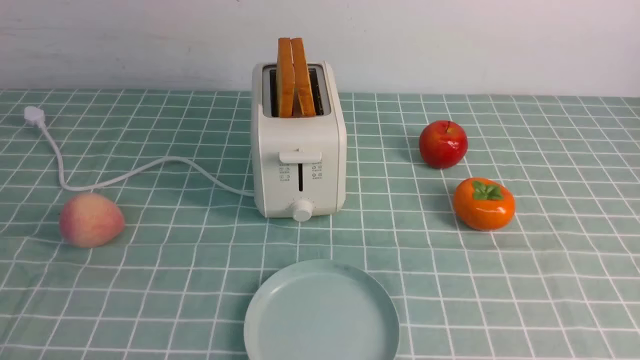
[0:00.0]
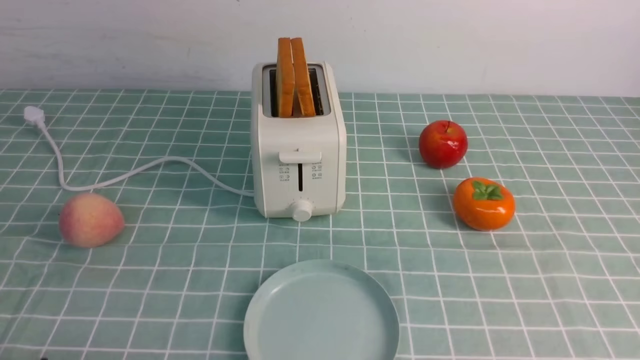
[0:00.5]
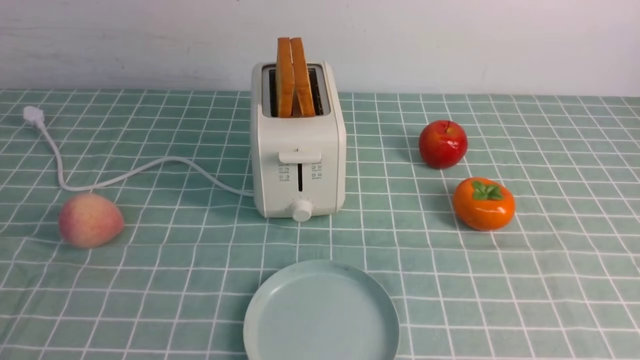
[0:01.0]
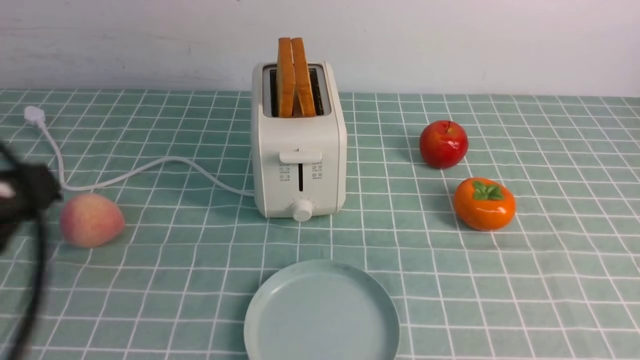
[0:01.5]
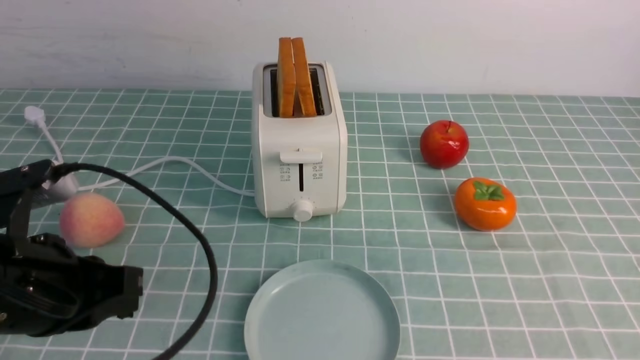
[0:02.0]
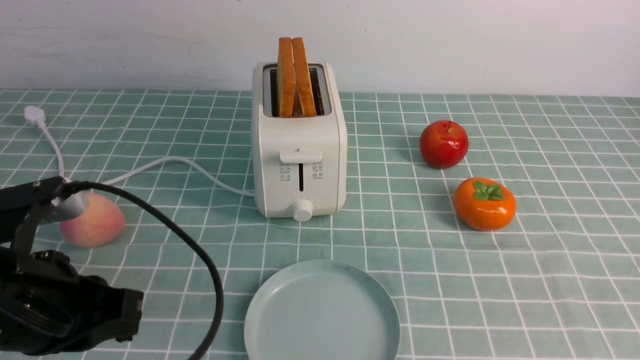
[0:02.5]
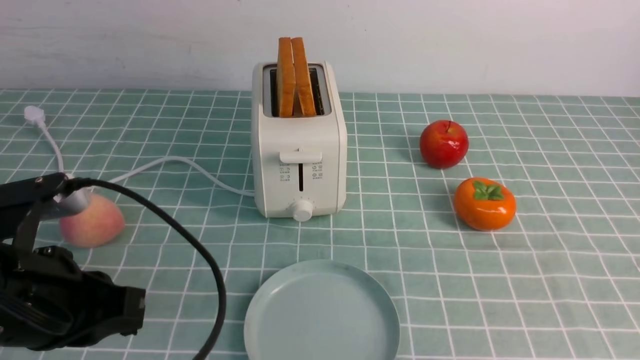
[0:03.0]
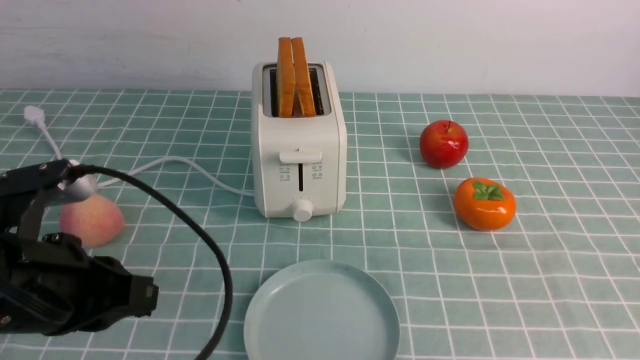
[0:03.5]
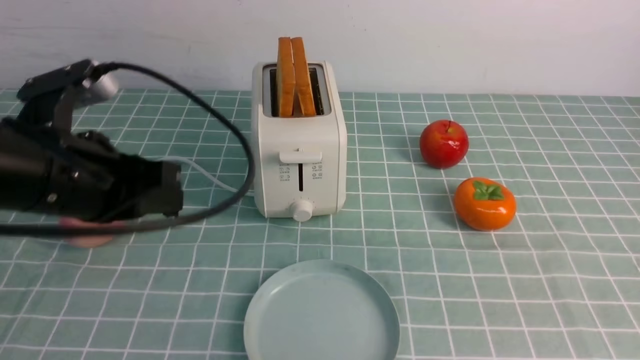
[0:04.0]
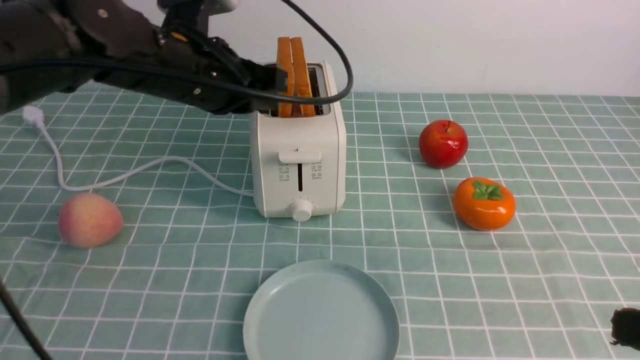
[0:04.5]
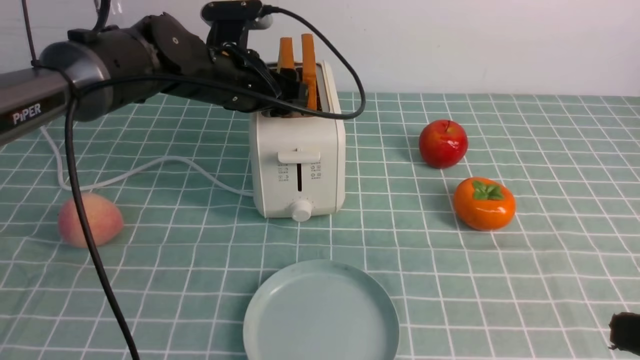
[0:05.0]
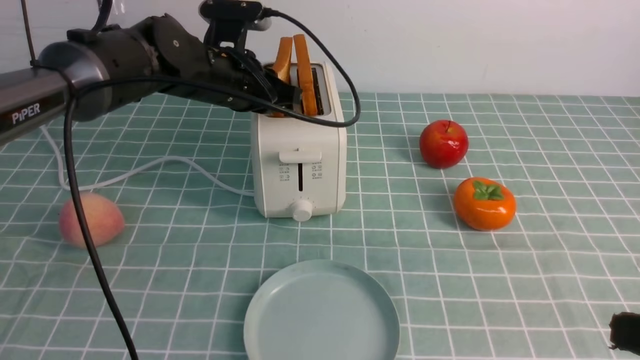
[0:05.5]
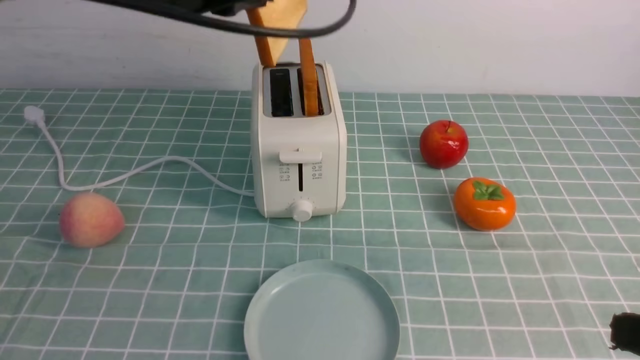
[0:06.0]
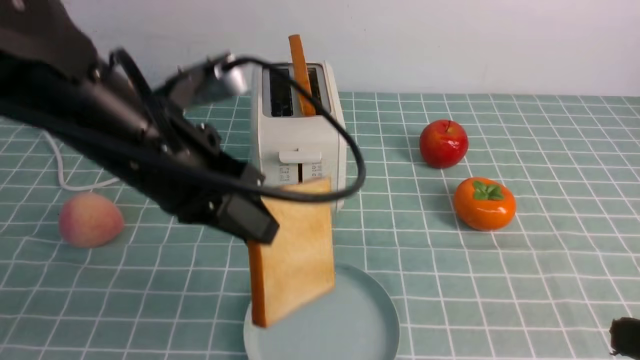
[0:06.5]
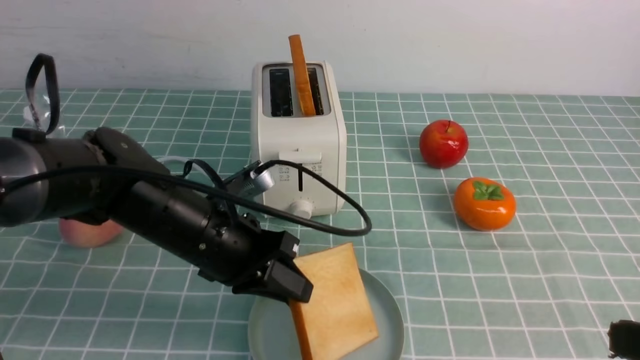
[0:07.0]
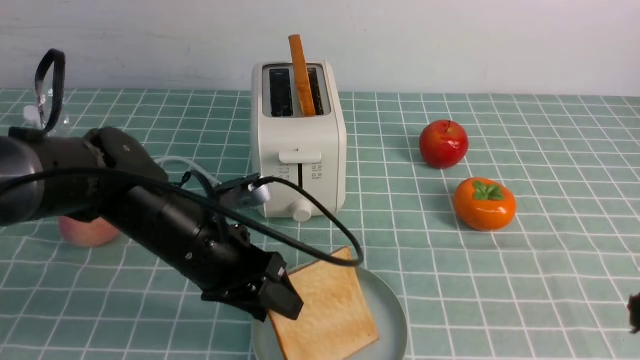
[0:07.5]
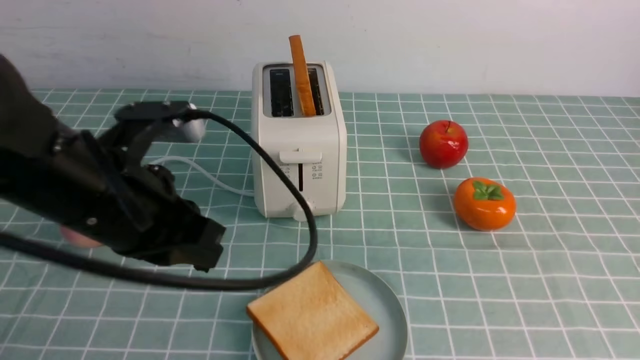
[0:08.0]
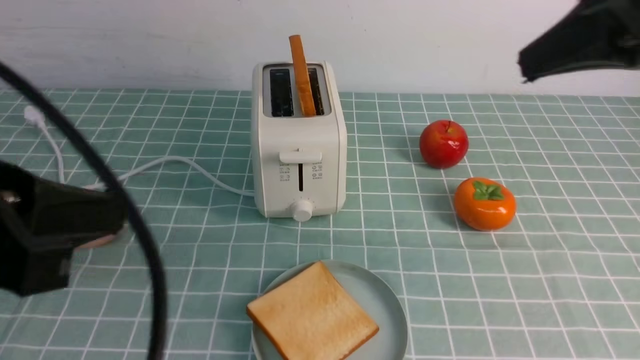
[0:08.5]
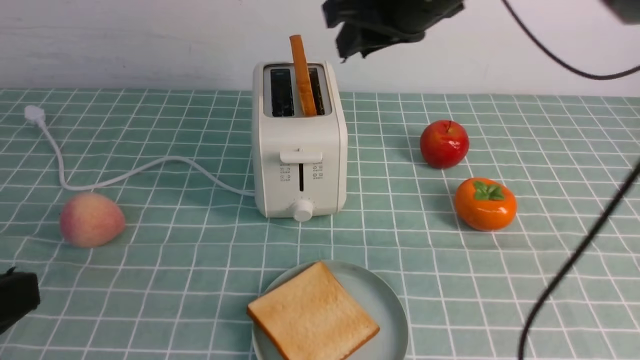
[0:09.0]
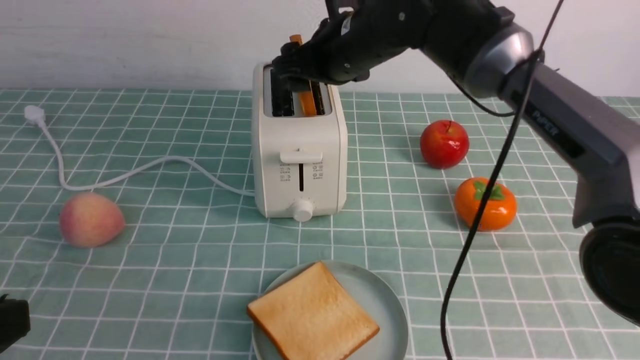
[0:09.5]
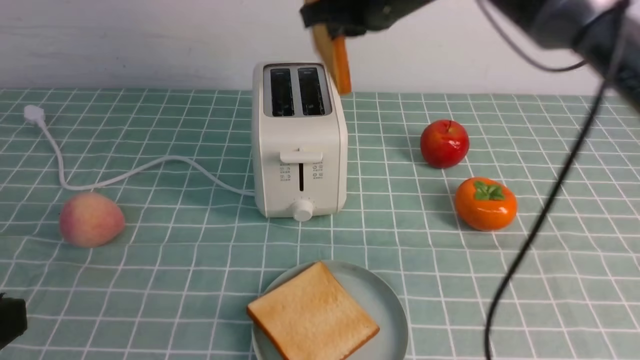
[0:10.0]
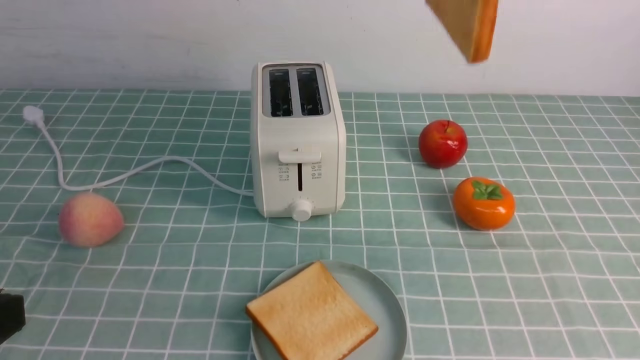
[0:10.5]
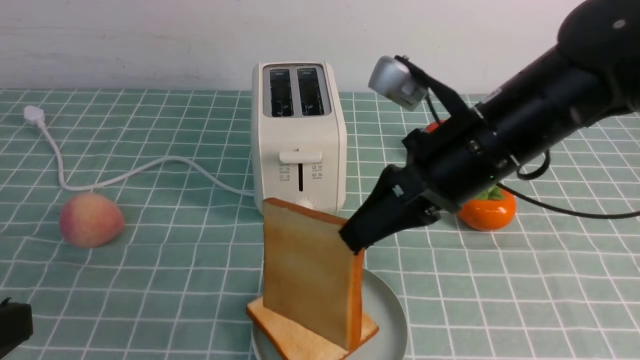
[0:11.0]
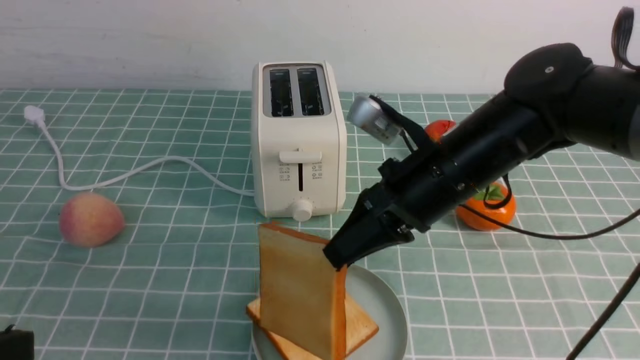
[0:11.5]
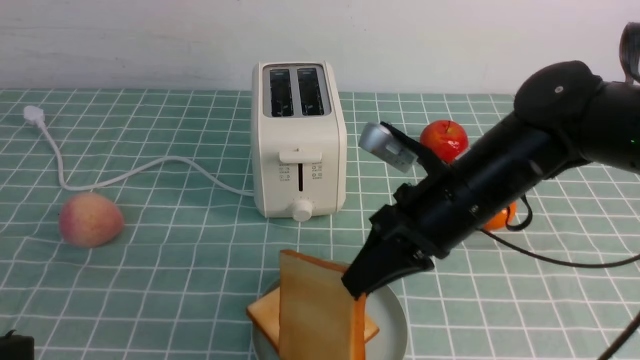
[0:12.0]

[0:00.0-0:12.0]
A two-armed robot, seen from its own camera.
Task of the whole recording: take toasted bread from bread machine on blue coffee table place on plate.
Step, 0:00.0 to 0:05.5: use the left arm to take out a slice of bread.
Step, 0:06.0 to 0:08.0: use the left arm to put a slice of bread into the empty plate.
Step, 0:08.5 to 0:10.0: use the right arm to take out a slice of bread.
0:00.0 to 0:02.0: The left gripper travels forward and upward by about 15 cm, and closes its fingers.
0:02.0 to 0:04.0: The left gripper moves forward, roughly 10 cm.
0:04.0 to 0:06.0: The left gripper heads upward, forward and to the right, covering roughly 15 cm, and opens and closes again.
0:06.0 to 0:08.0: The left gripper is displaced backward and downward by some 15 cm, and opens, then closes again; the right gripper heads upward, covering about 15 cm.
0:08.0 to 0:10.0: The right gripper moves forward and to the left, roughly 30 cm, and opens, then closes again. The left gripper goes about 20 cm backward and to the left.
0:10.0 to 0:12.0: The right gripper goes some 20 cm downward and backward.

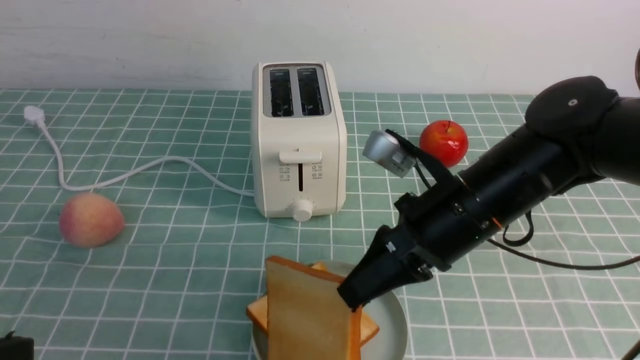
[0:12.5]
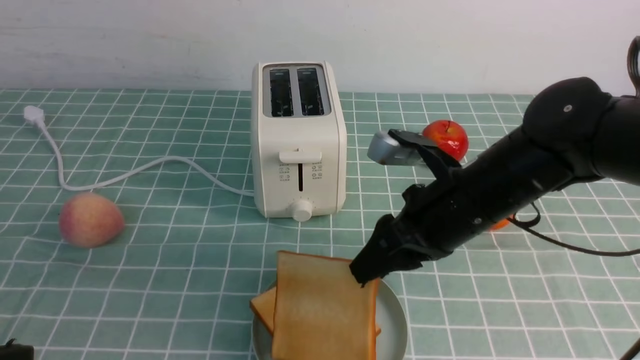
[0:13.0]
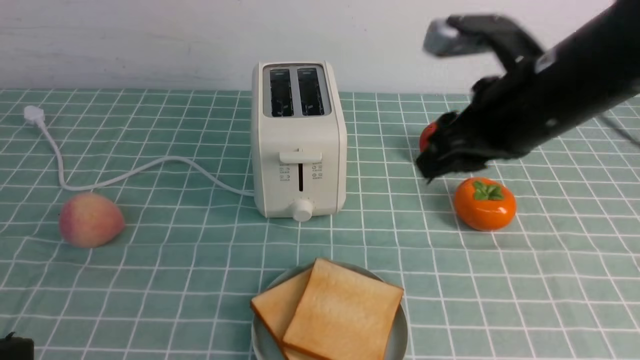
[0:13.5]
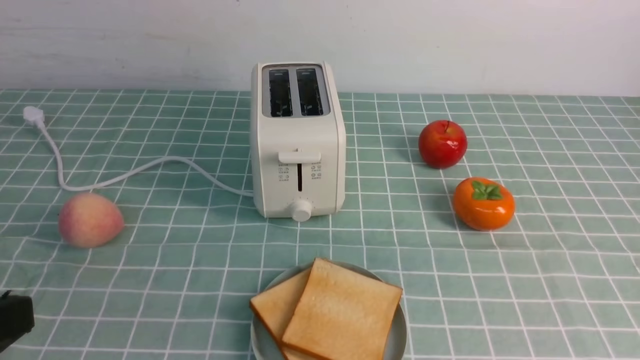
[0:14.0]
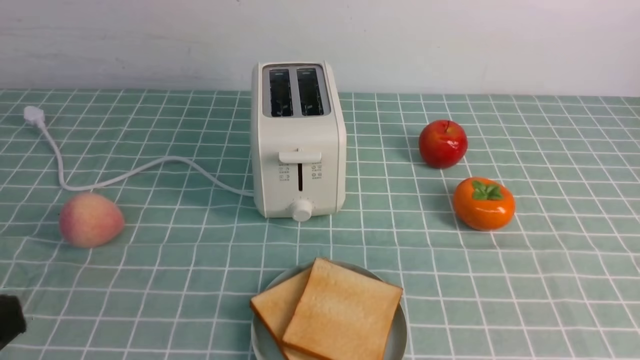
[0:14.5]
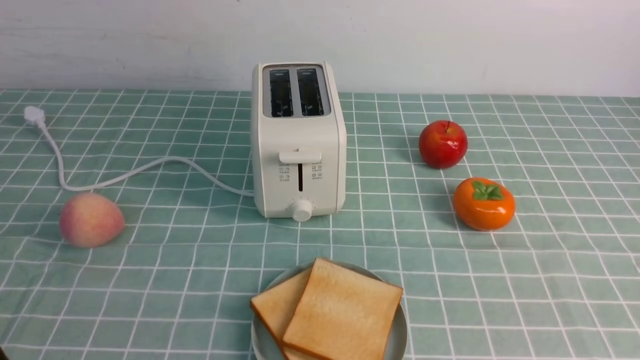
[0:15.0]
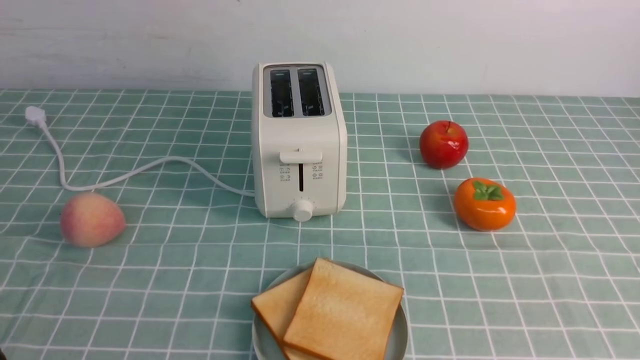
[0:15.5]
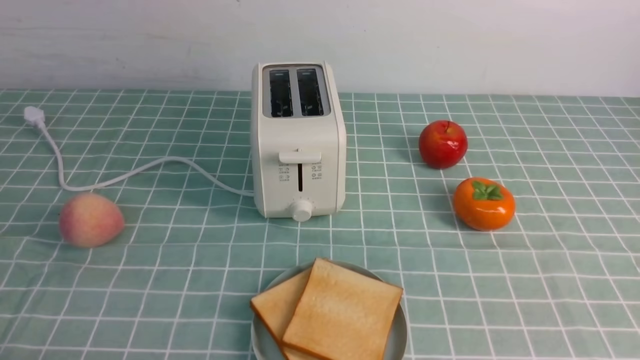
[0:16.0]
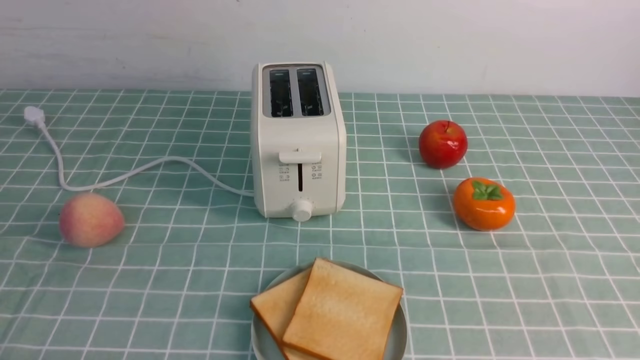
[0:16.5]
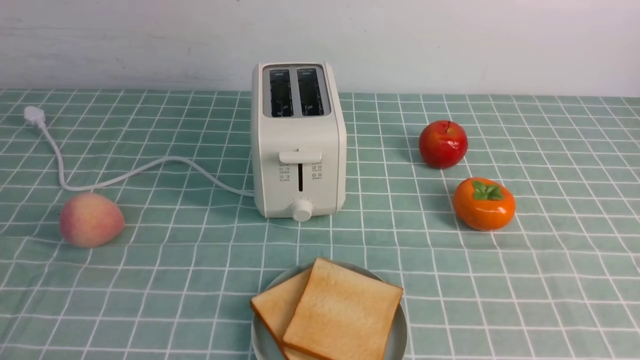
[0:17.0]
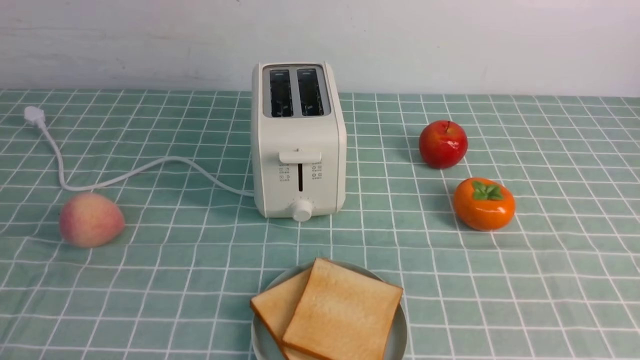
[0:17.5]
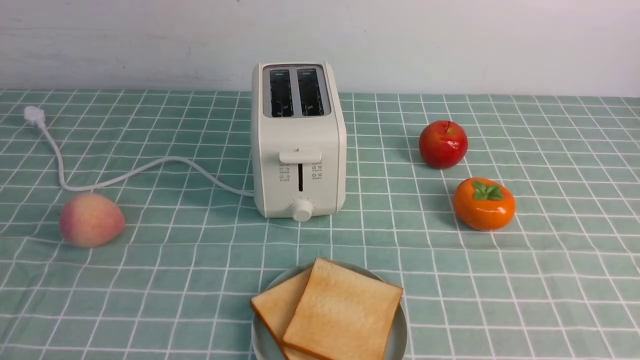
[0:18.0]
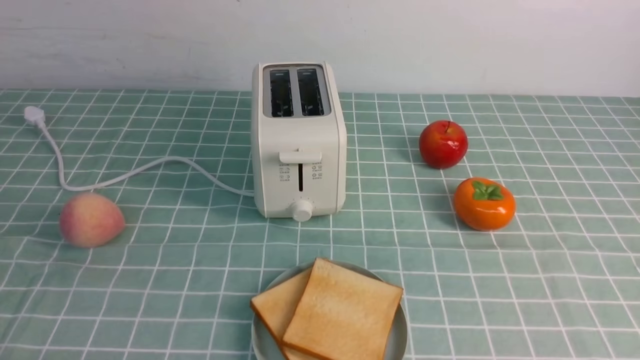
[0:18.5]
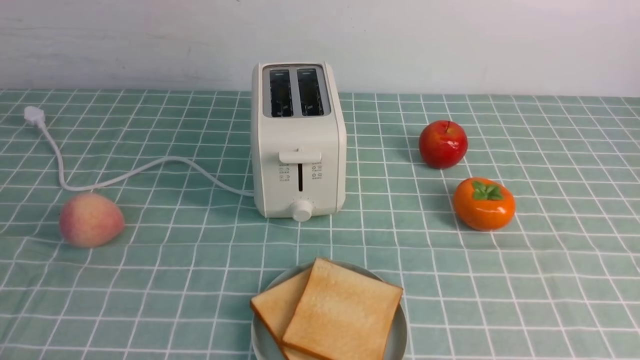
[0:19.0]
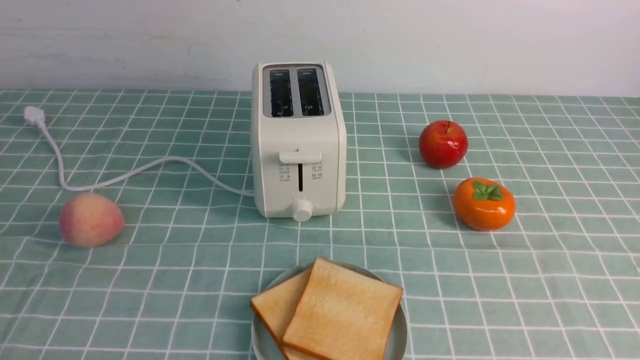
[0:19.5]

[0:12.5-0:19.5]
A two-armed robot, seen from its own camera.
Task of the whole recording: take toasted bread from bread machine on blue coffee table place on plate.
0:12.5 to 0:14.5: The right gripper moves backward and to the right, approximately 30 cm, and opens, then closes again.

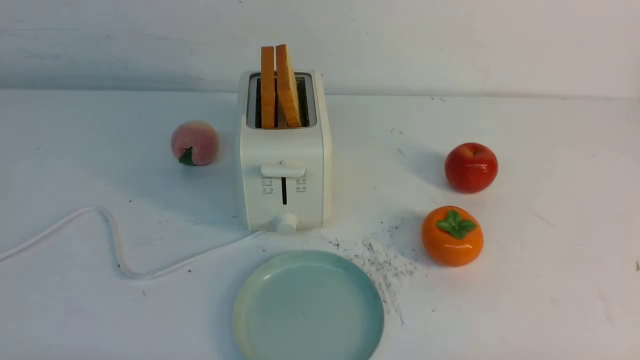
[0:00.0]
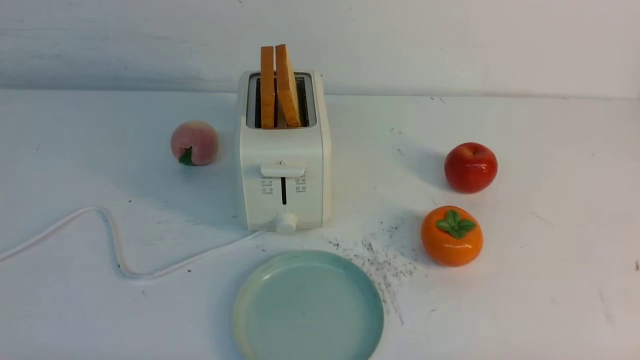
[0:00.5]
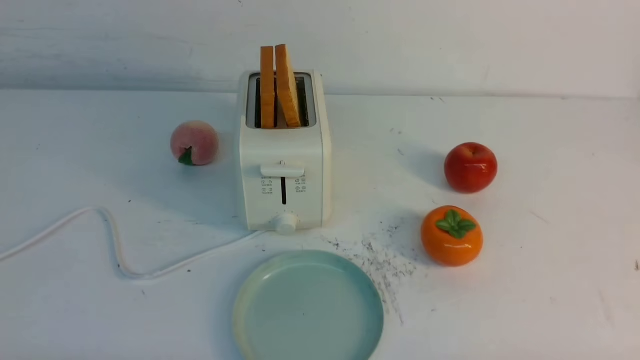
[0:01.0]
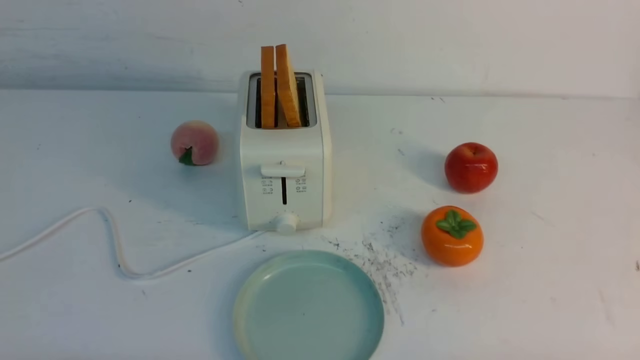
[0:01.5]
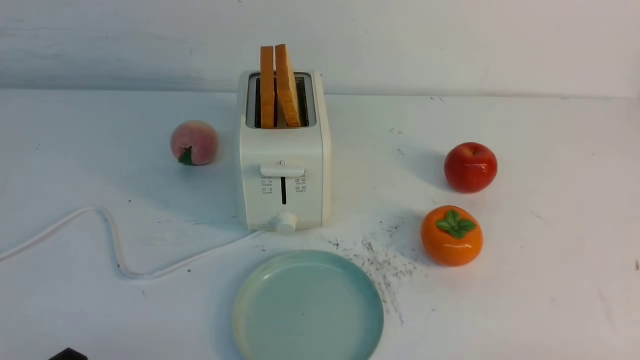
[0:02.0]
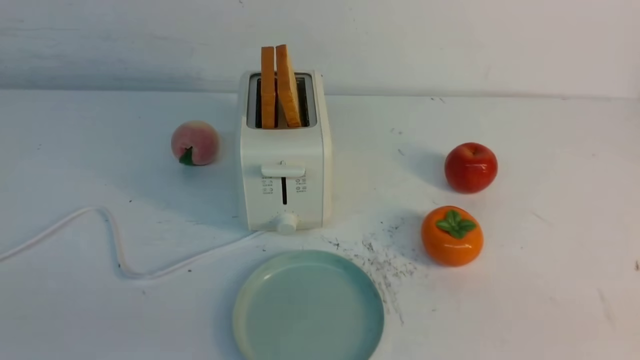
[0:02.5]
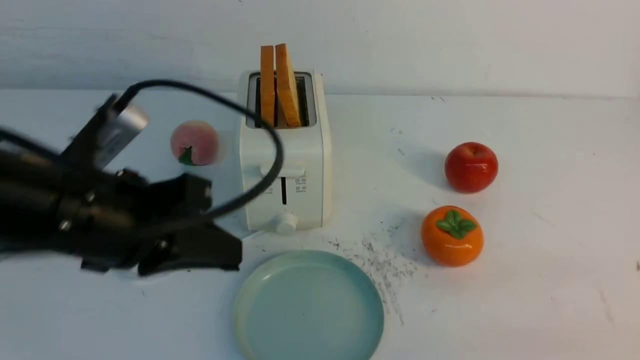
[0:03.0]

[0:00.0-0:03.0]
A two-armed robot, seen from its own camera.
Task of the whole recording: take toasted bread from bread machine on white table place on plate.
0:01.5 to 0:03.0: The right gripper moves upward, approximately 10 cm, and closes. The left gripper moves forward, upward and to the right, some 25 cm, and closes its fingers.
